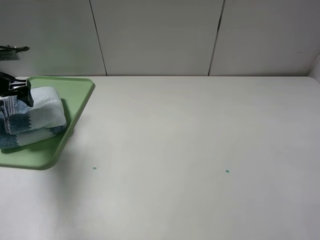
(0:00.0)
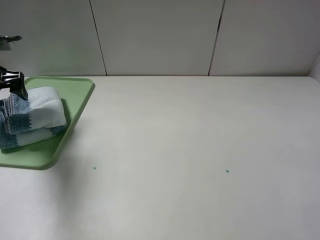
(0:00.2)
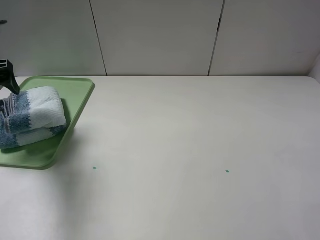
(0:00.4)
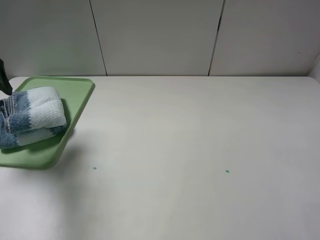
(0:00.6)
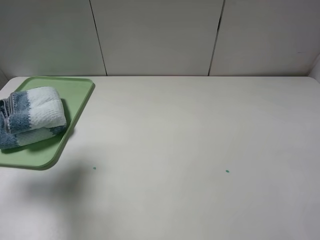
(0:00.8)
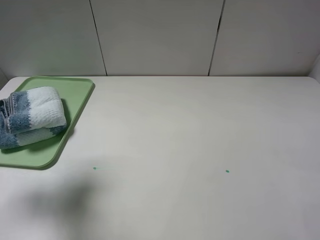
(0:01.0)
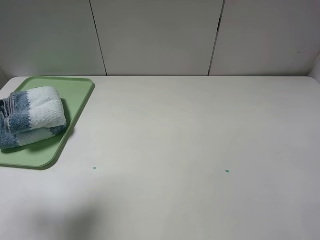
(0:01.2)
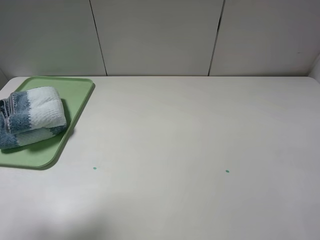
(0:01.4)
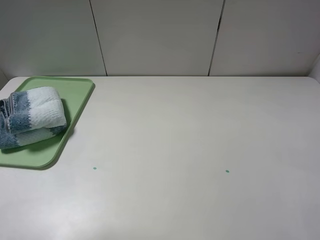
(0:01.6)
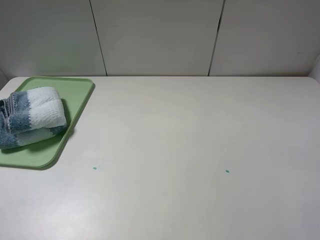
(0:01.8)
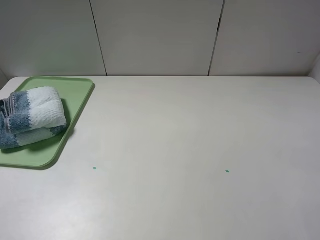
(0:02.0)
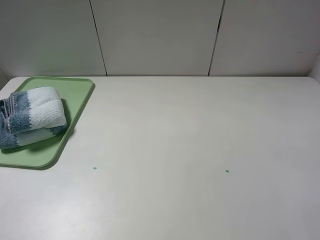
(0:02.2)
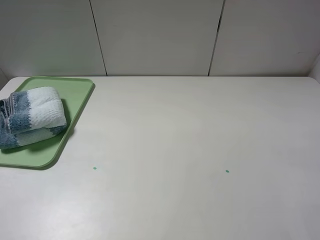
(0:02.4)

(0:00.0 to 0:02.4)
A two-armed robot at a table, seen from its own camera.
0:00.0 - 0:01.2: The left gripper travels backward and upward by about 25 cm.
0:01.2 - 0:02.4: The left gripper moves backward and downward, some 20 cm.
